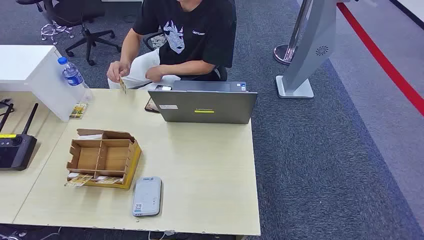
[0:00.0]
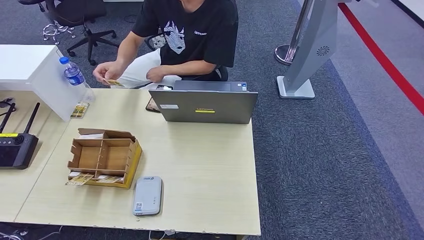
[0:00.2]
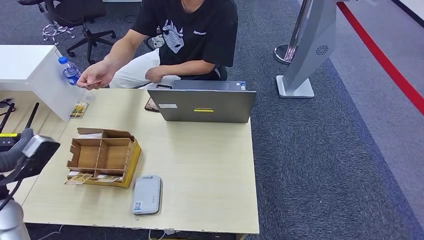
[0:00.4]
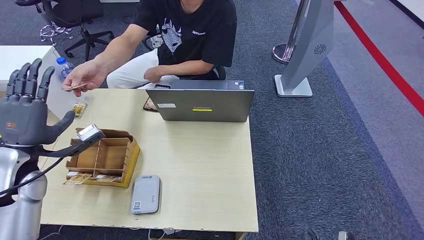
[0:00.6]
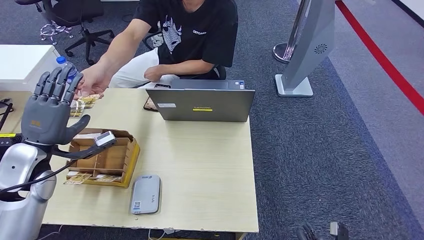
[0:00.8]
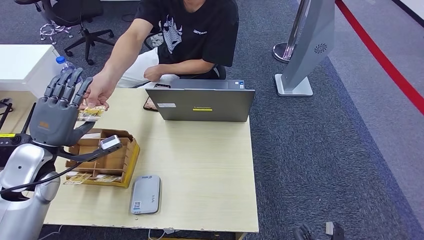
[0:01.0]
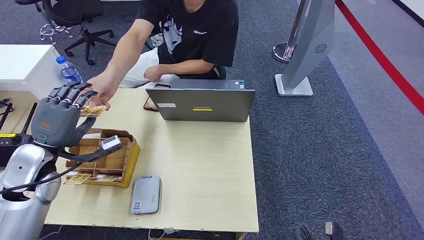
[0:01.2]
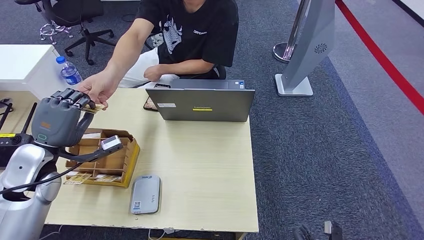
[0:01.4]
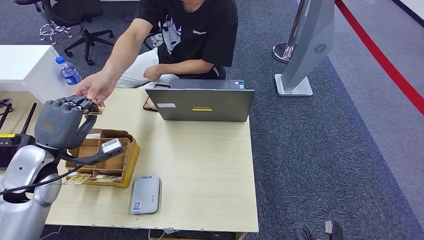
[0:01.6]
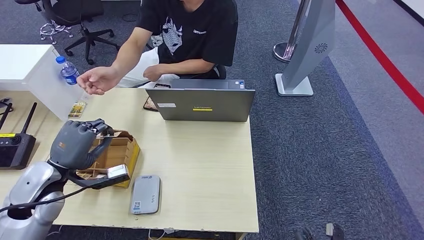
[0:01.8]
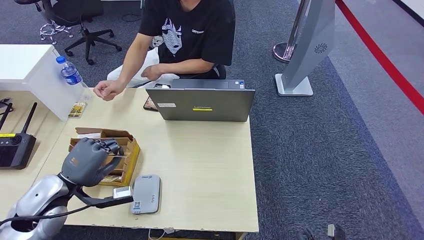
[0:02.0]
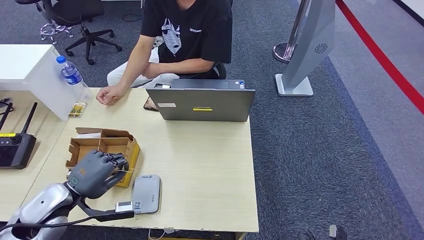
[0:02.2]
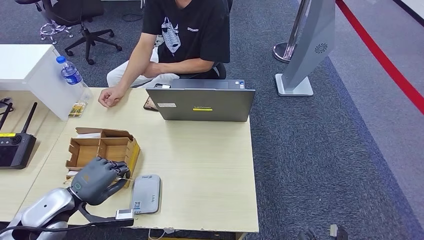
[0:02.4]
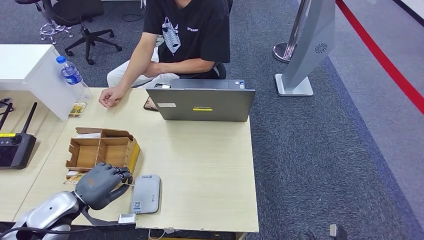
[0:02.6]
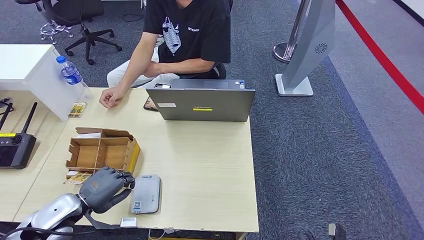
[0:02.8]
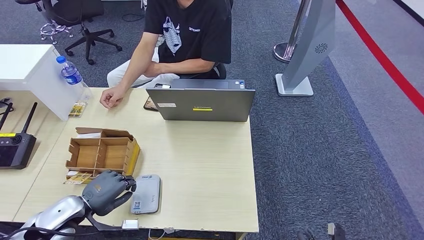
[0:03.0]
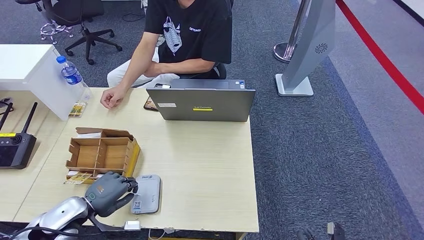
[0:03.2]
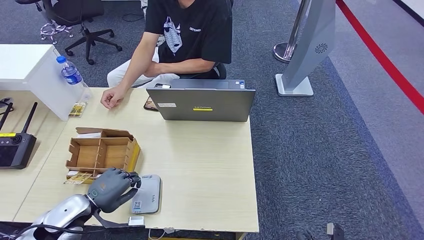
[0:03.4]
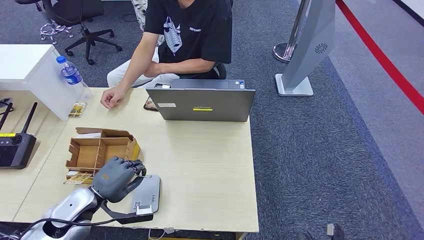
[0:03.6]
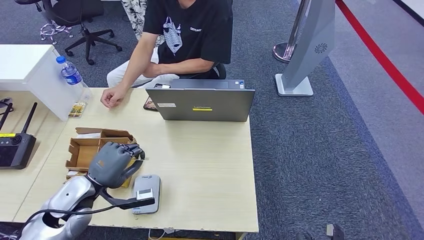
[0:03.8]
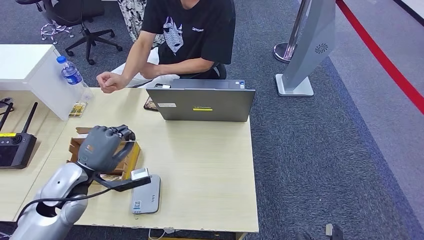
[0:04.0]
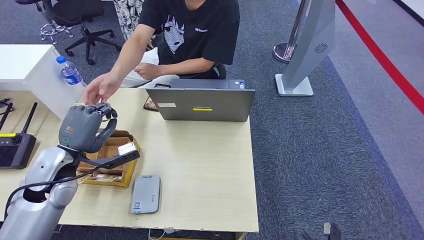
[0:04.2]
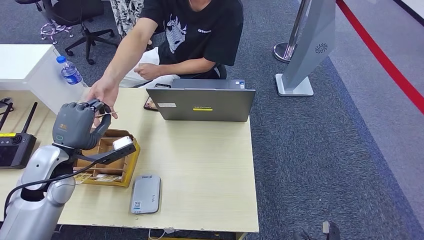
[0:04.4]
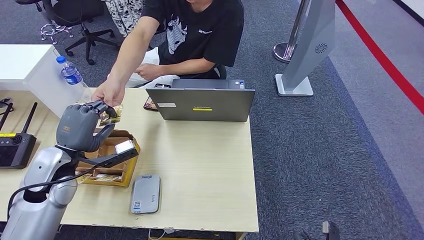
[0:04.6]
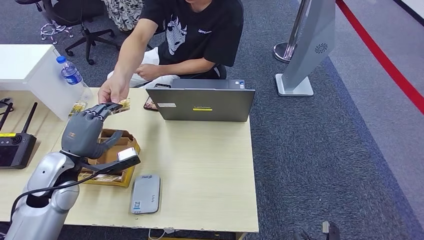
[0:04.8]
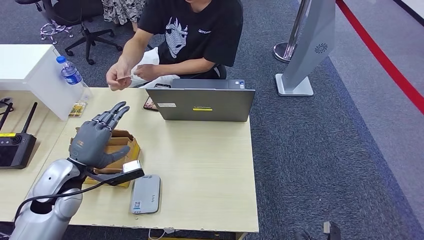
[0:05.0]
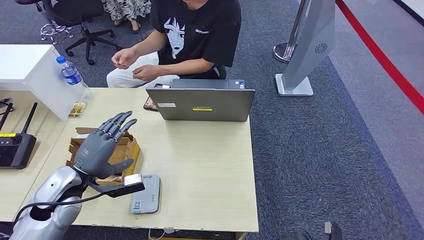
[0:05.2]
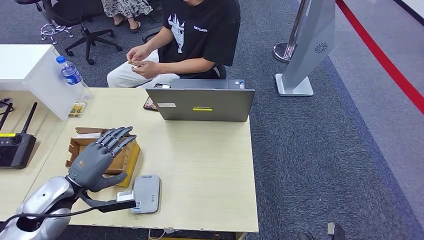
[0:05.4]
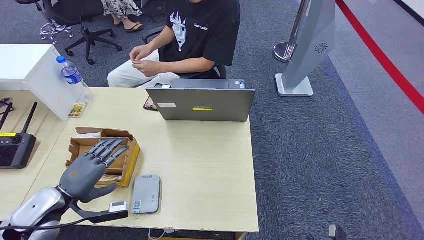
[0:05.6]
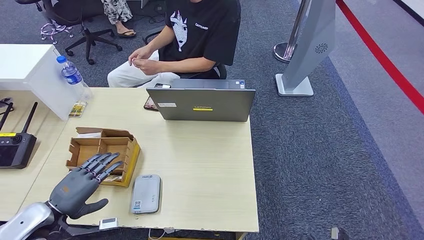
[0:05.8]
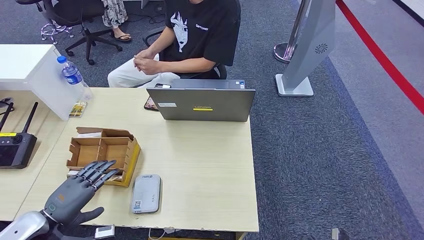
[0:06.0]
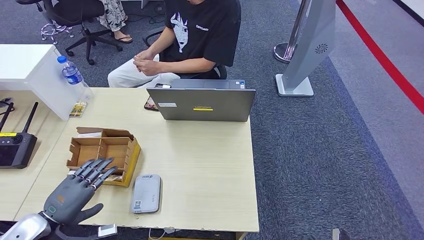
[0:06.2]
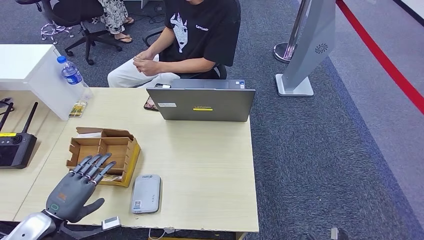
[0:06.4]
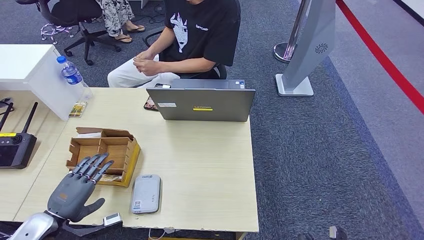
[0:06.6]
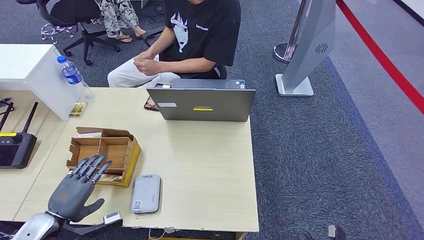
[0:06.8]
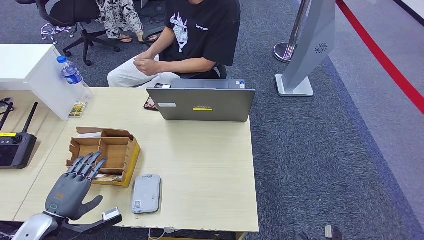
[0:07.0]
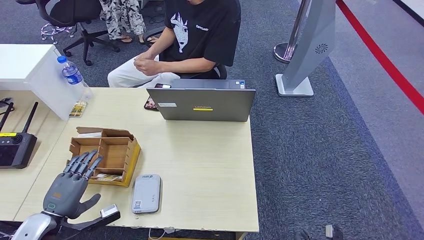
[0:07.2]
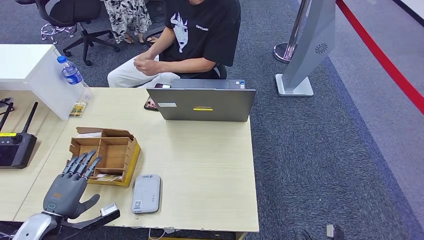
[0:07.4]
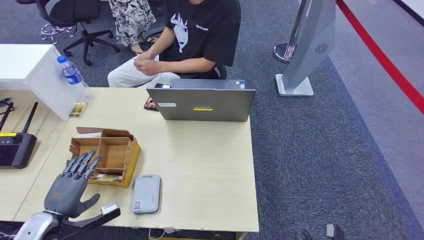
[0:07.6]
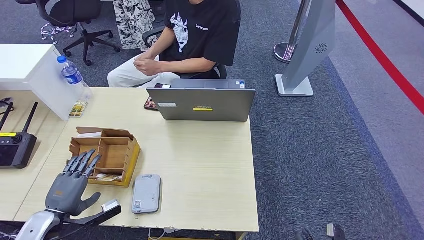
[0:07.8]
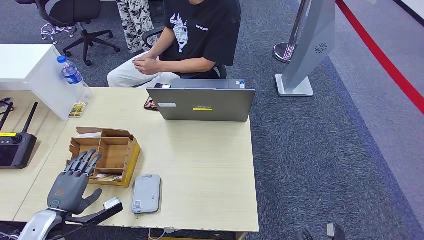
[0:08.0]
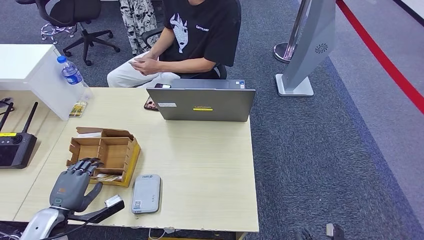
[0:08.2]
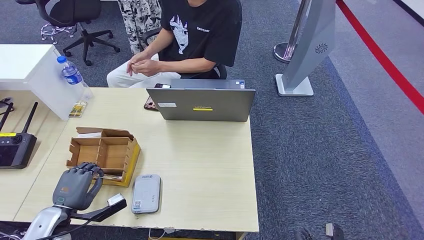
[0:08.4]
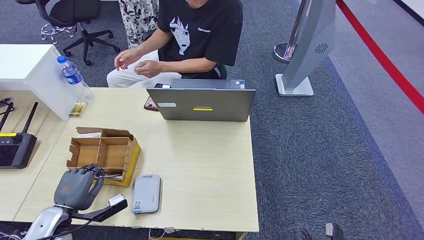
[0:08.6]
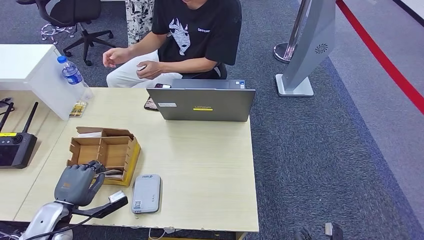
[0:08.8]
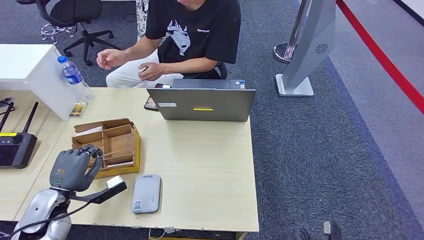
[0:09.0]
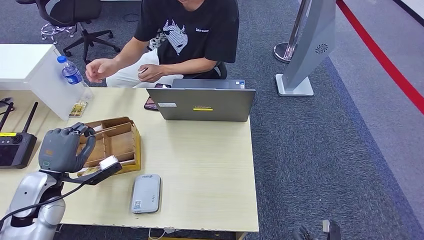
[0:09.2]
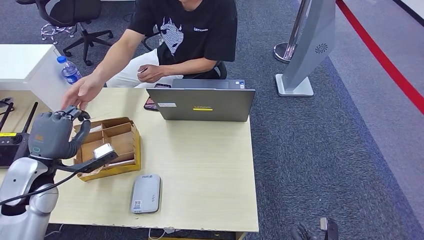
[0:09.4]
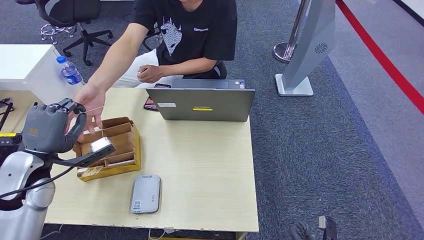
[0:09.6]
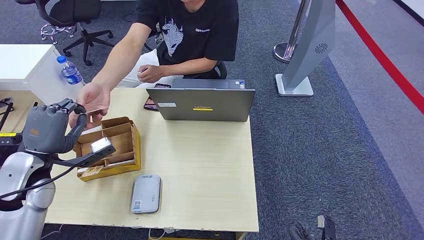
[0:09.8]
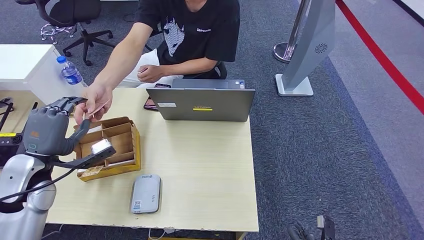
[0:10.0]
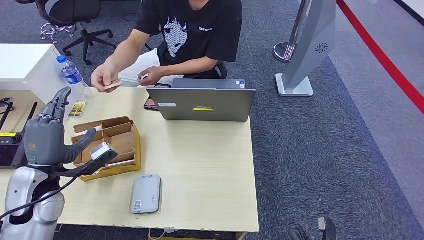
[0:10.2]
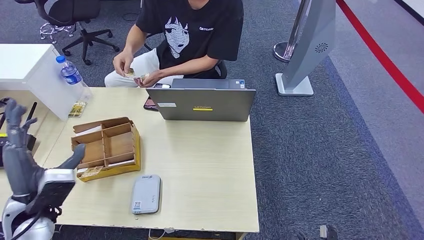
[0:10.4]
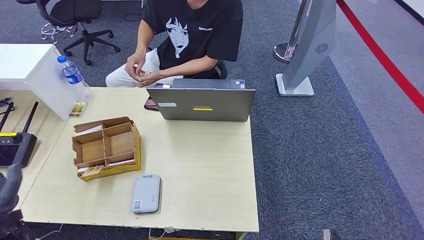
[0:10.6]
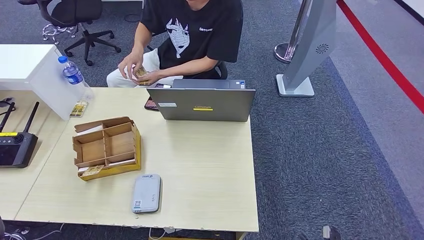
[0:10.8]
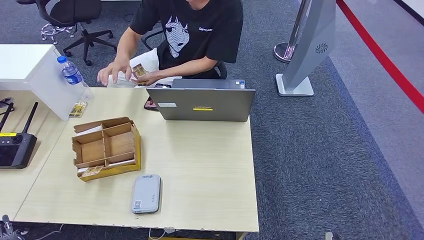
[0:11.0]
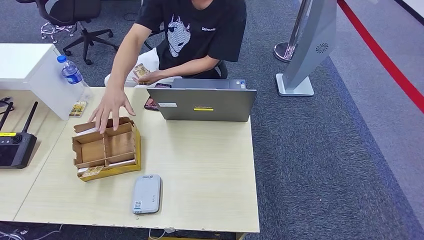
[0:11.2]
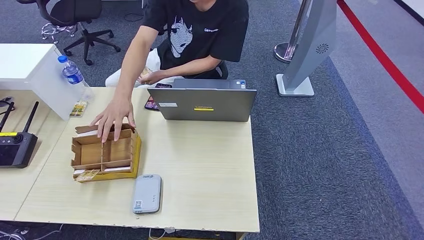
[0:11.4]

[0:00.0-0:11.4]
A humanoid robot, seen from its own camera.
Step, 0:00.0 to 0:02.2: Take the ID card from the person's hand.
Step, 0:02.4 to 0:03.8: Place the ID card on the card reader.
Step, 0:04.6 to 0:05.6: Hand the ID card to the person.
Step, 0:06.4 to 0:09.6: Pick up the room key from the key card box.
Step, 0:09.8 to 0:11.4: Hand the room key to the person.
0:01.4 to 0:02.8: The left hand travels downward and backward by approximately 15 cm.
0:02.8 to 0:04.2: The left hand shifts roughly 15 cm upward and forward.
0:04.2 to 0:05.6: The left hand heads backward and downward, covering some 10 cm.
0:05.6 to 0:07.2: The left hand heads downward, covering about 5 cm.
0:07.2 to 0:08.6: There are only small adjustments of the hands.
0:08.6 to 0:10.0: The left hand travels upward and forward by roughly 15 cm.
0:10.0 to 0:11.4: The right hand moves backward, some 10 cm. The left hand shifts some 40 cm downward and backward.
